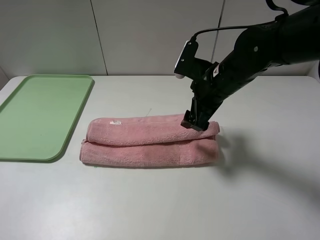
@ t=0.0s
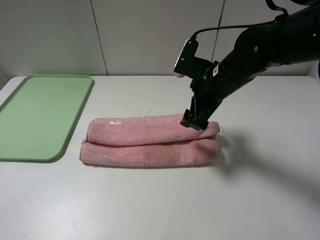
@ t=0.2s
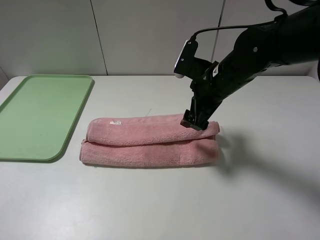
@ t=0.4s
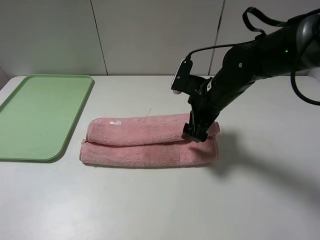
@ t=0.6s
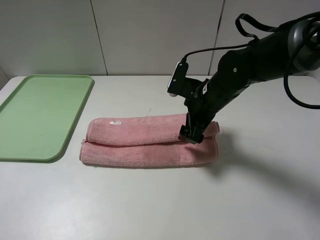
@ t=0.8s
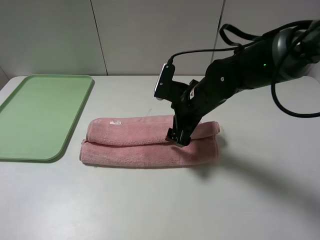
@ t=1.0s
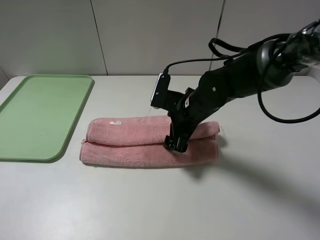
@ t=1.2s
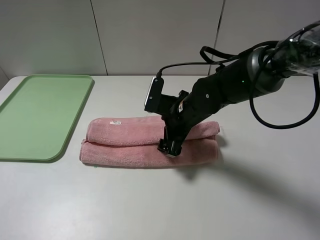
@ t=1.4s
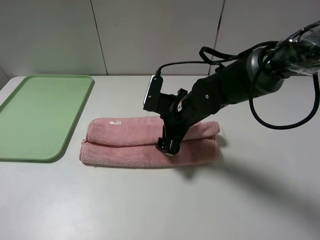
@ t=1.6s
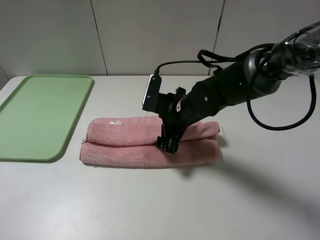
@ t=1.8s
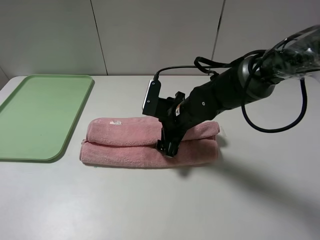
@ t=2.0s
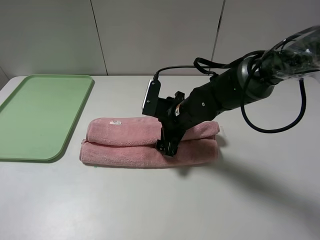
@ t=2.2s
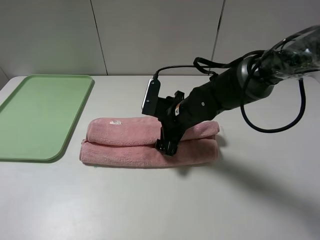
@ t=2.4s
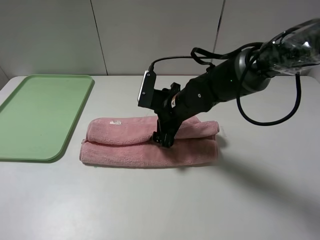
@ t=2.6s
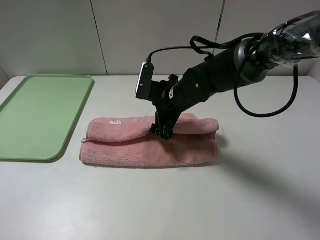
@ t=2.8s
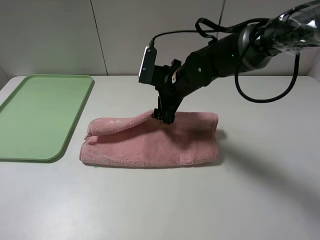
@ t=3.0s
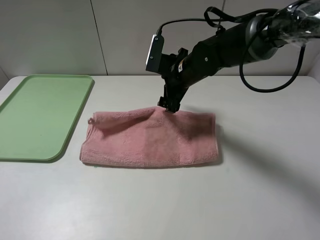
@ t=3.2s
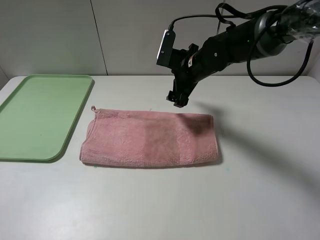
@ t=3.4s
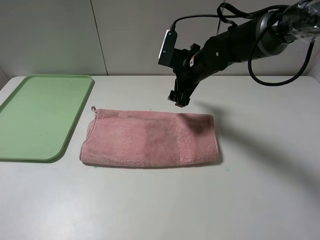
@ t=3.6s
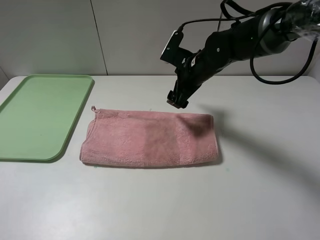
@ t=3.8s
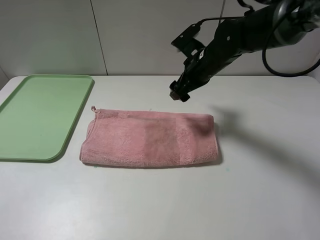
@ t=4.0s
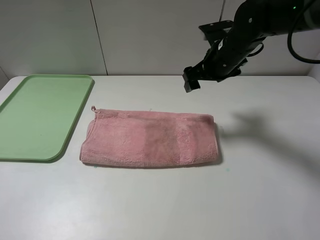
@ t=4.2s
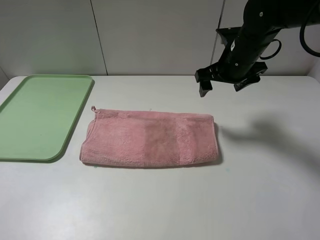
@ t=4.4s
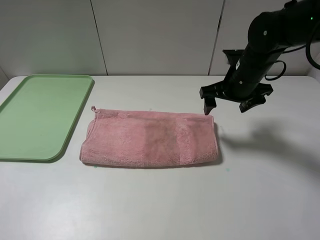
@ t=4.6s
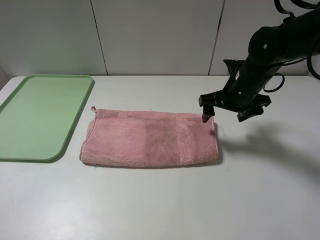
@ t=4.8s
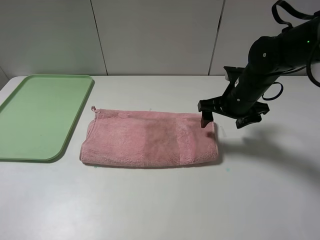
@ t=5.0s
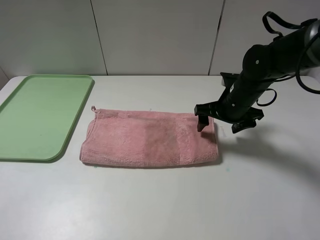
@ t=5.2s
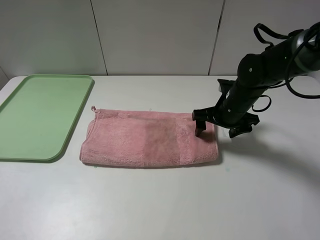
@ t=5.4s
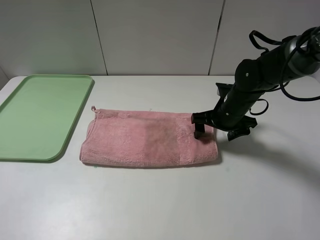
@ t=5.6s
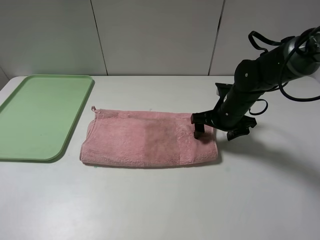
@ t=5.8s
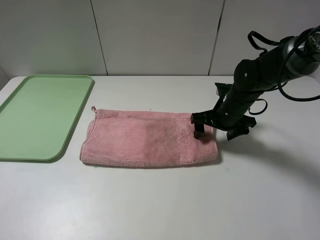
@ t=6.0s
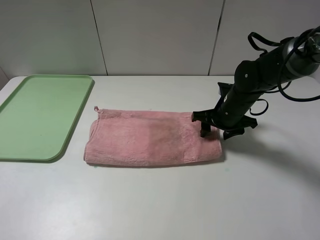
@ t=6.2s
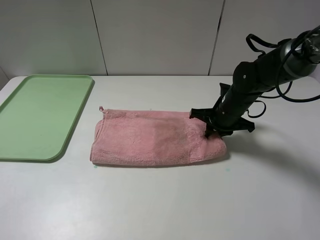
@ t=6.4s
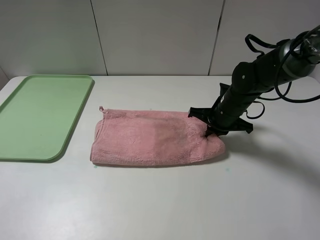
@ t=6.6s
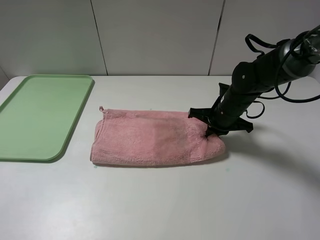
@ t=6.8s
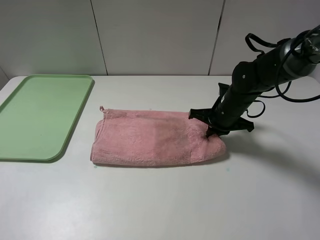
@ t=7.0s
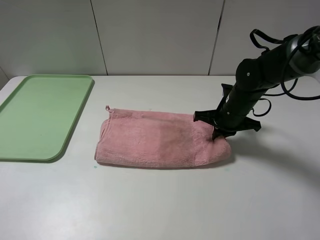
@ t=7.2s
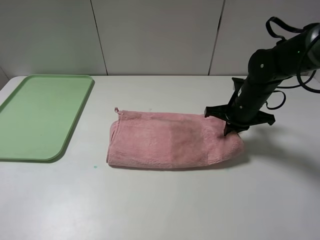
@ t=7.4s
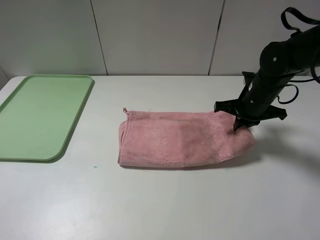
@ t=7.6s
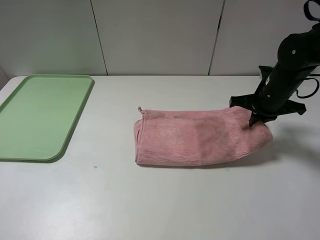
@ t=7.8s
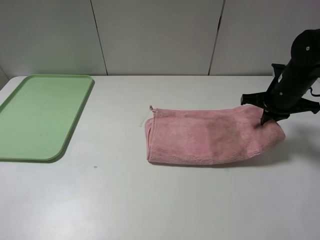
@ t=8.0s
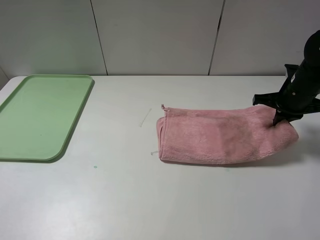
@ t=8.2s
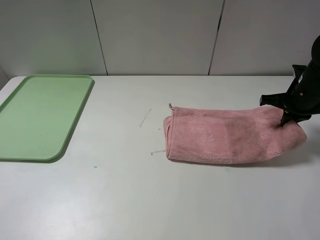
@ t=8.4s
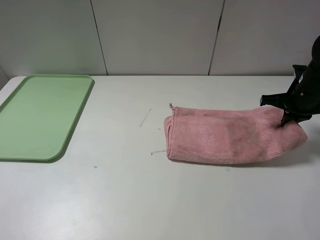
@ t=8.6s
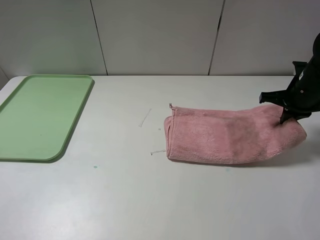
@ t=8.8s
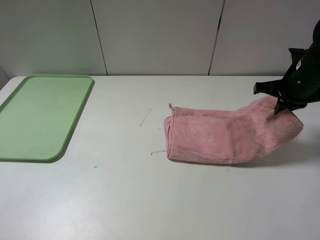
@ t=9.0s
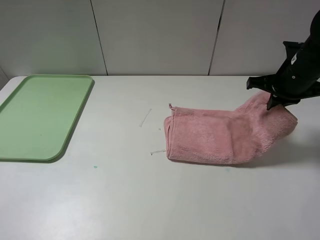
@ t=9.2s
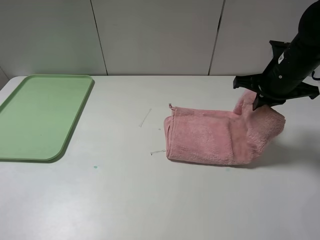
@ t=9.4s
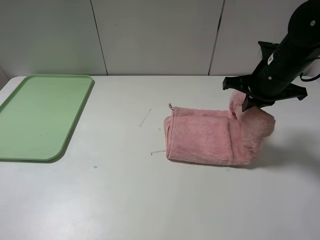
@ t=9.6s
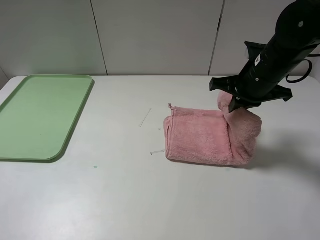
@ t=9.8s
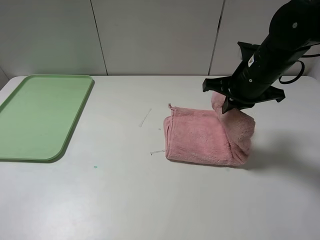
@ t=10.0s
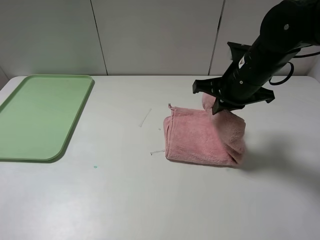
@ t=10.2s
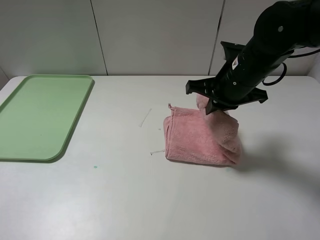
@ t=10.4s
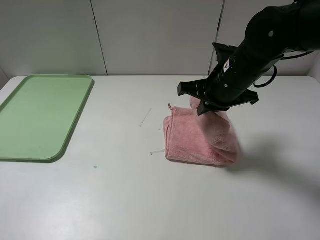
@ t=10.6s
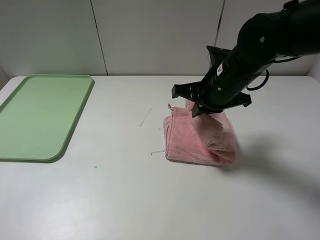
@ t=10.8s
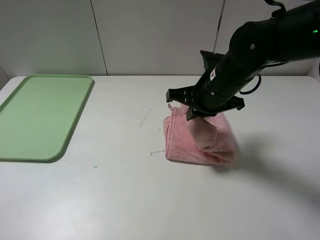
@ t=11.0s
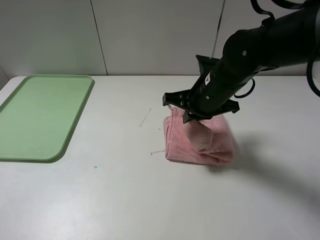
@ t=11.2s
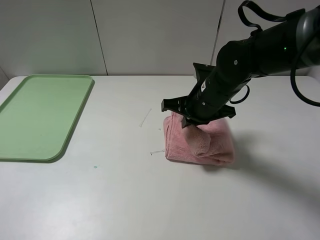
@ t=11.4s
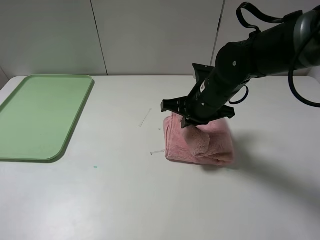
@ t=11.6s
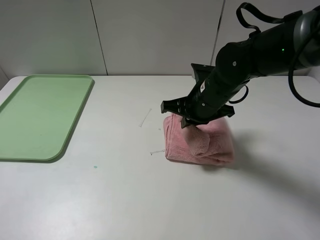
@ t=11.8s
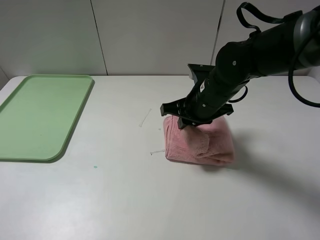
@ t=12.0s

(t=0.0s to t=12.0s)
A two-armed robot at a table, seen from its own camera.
Step, t=0.0s - t=3.4s: Fold the pink towel upwards.
t=0.0s - t=1.6s: The right gripper heads downward and to the left, covering roughly 10 cm.
t=1.6s - t=3.0s: The right gripper heads forward, covering about 5 cm.
t=3.0s - t=4.4s: The right gripper is displaced to the right and upward by some 15 cm.
t=4.4s - t=6.0s: The right gripper goes some 10 cm downward.
t=6.0s - t=7.6s: The right gripper travels to the right by some 5 cm, and closes.
t=7.6s - t=9.0s: The right gripper shifts some 10 cm upward and to the right.
t=9.0s - t=10.4s: The right gripper goes approximately 15 cm to the left.
t=10.4s - t=12.0s: The right gripper moves downward, approximately 5 cm, and opens.

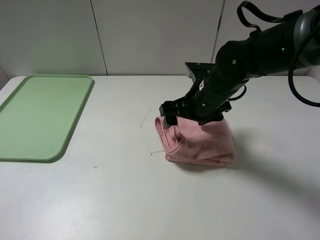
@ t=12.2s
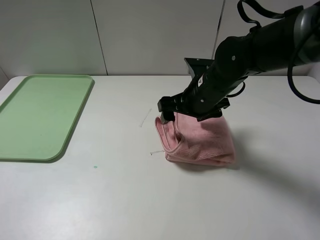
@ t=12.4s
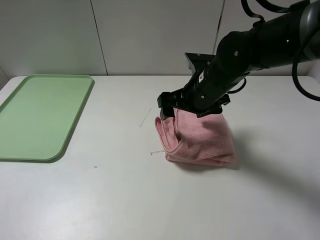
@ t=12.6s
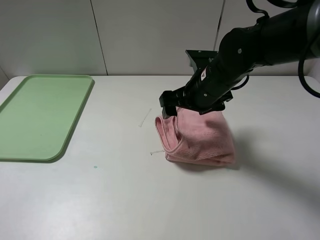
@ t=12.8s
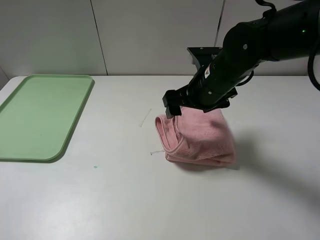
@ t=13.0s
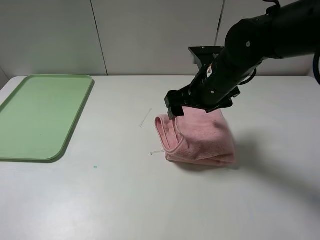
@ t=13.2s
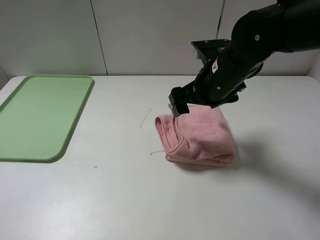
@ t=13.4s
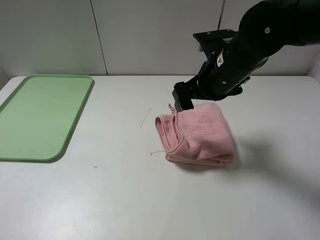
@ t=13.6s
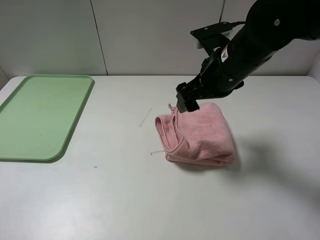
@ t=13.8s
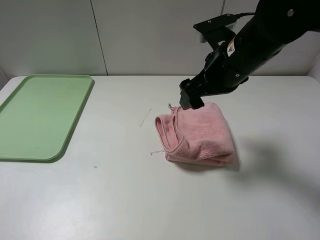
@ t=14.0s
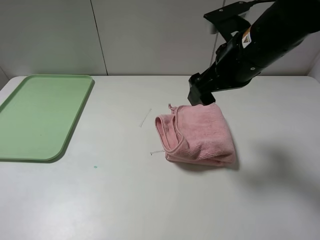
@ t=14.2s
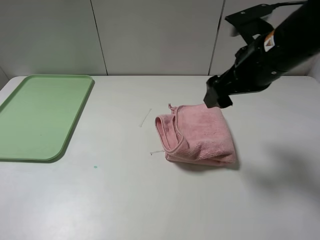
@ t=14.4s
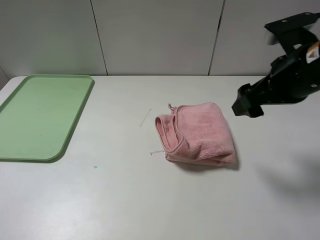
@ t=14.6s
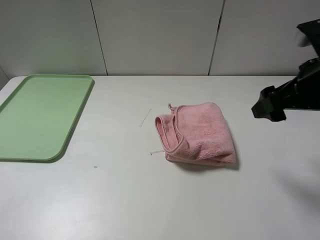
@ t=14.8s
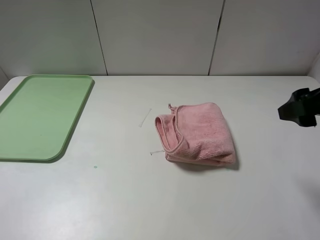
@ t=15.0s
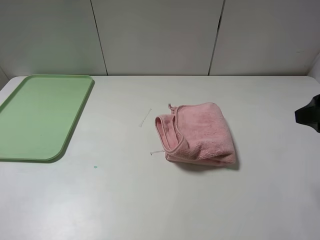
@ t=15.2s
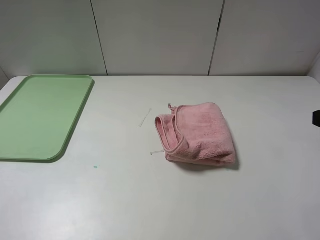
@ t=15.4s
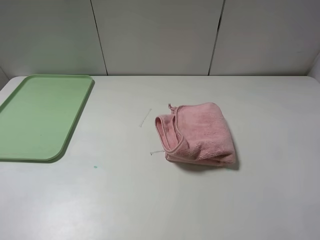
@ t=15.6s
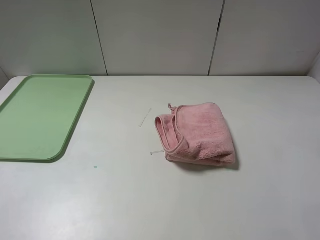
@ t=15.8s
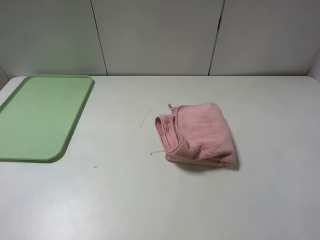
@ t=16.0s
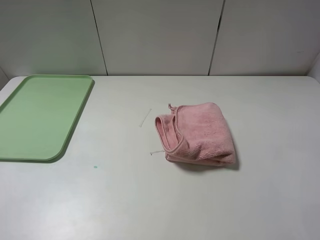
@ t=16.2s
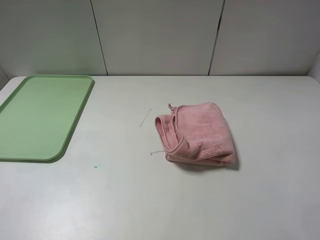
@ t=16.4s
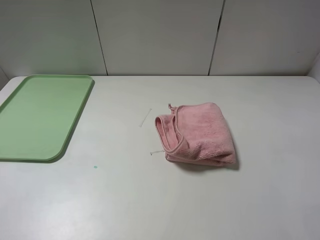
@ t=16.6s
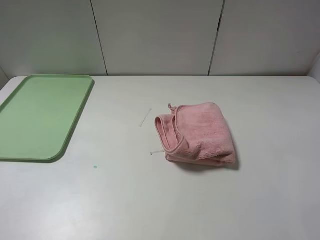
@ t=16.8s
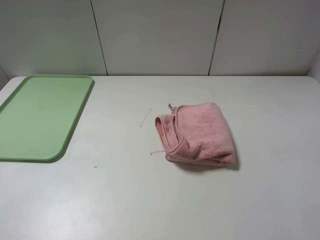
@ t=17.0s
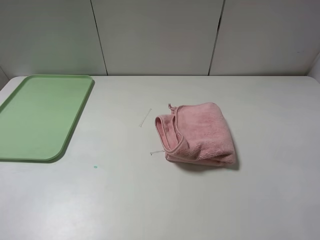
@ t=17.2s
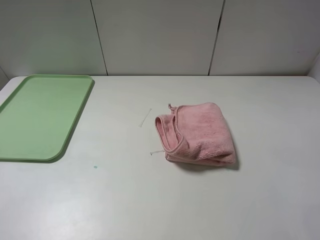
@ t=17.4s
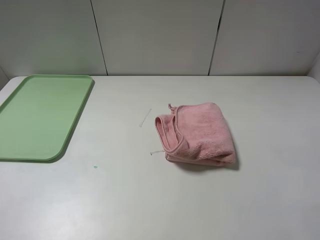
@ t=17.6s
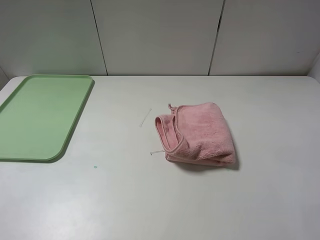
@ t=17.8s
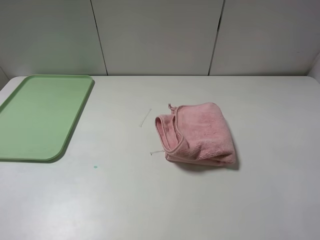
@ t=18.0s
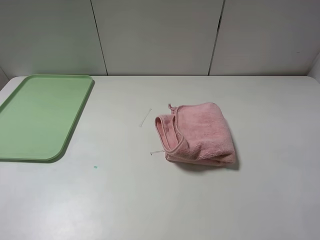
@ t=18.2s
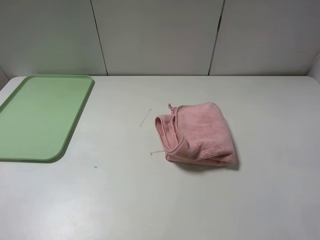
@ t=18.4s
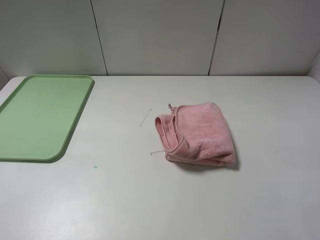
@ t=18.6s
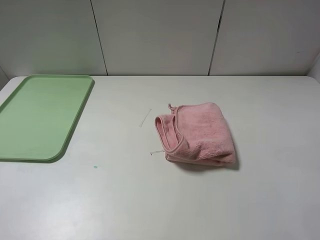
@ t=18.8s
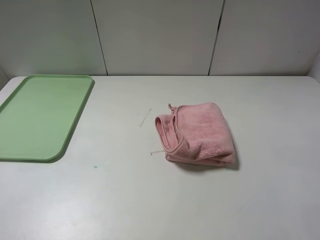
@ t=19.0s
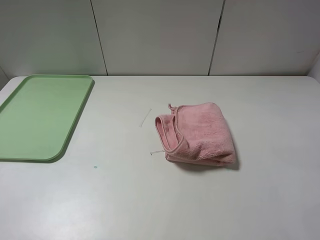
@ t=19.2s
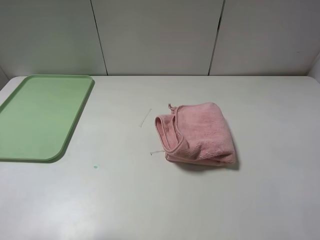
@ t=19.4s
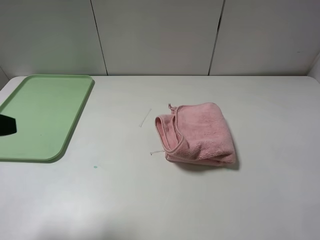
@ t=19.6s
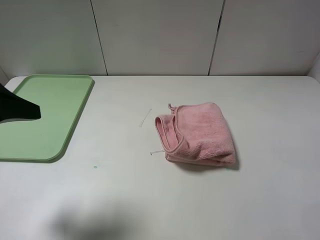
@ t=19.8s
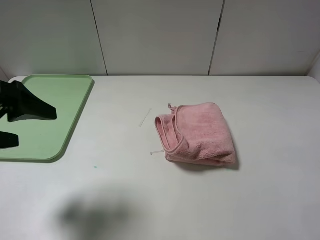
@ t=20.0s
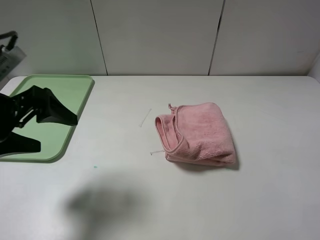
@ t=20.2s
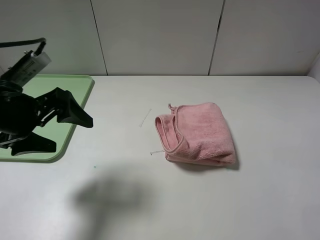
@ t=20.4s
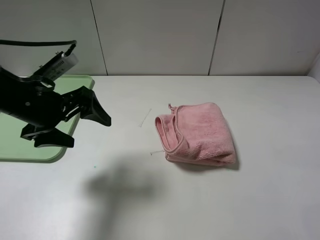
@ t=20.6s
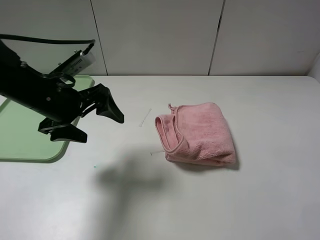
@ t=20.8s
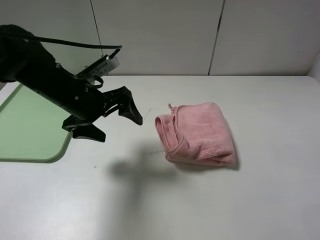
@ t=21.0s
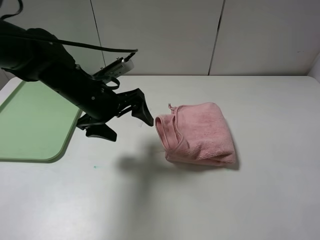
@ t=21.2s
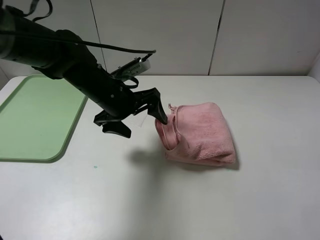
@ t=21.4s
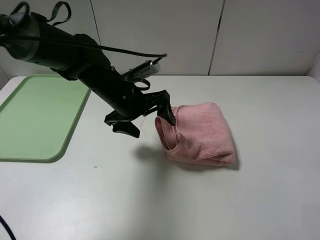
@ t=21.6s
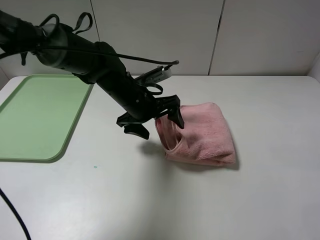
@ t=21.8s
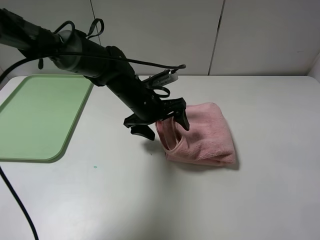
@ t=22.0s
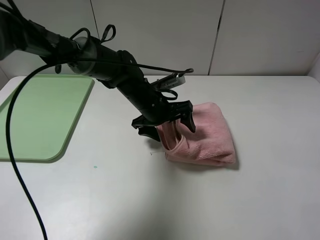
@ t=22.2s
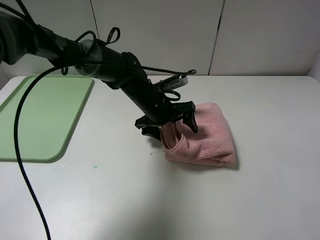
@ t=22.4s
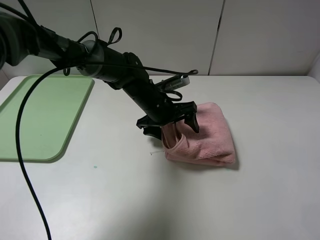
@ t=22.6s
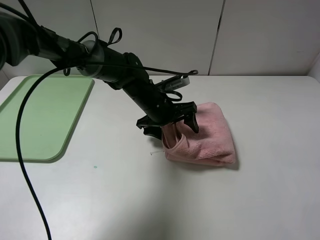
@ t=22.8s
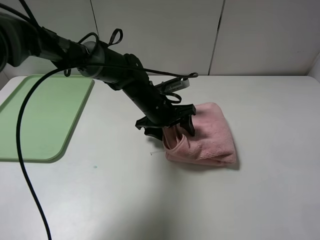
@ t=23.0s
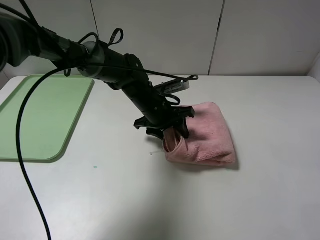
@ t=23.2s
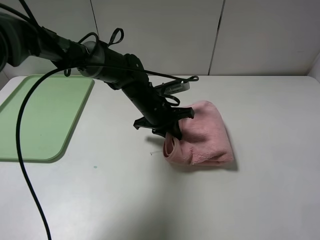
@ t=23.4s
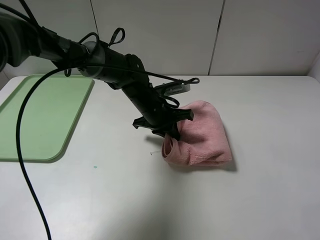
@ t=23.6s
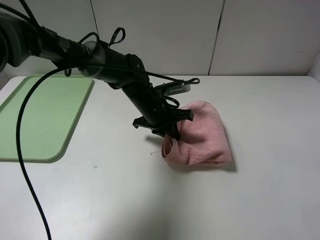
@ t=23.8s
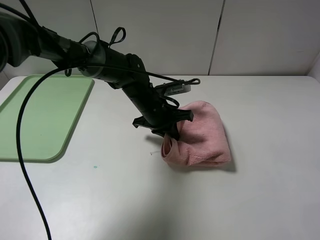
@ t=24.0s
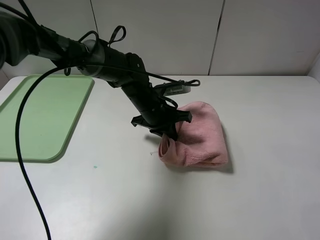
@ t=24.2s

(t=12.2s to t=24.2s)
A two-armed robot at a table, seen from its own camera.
t=12.2s - t=13.8s: The right gripper is displaced upward by some 5 cm.
t=13.8s - t=15.2s: The right gripper goes about 20 cm to the right and backward.
t=15.2s - t=16.6s: The right gripper shifts about 15 cm backward.
t=18.2s - t=19.8s: The left gripper shifts some 15 cm forward.
t=19.8s - t=21.2s: The left gripper shifts about 25 cm to the right, forward and downward.
t=21.2s - t=22.6s: The left gripper shifts some 15 cm to the right, downward and forward.
t=22.6s - t=24.2s: The left gripper closes its fingers.
